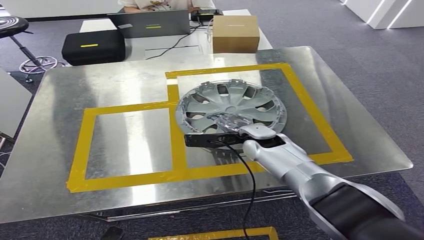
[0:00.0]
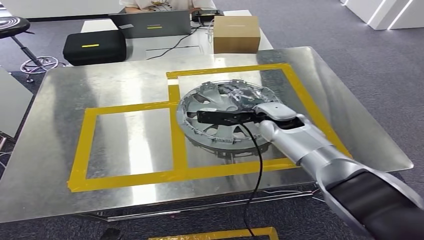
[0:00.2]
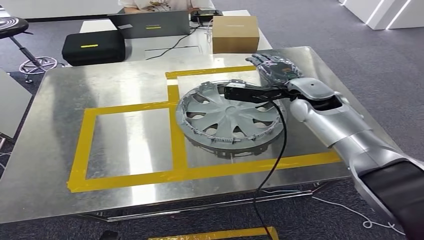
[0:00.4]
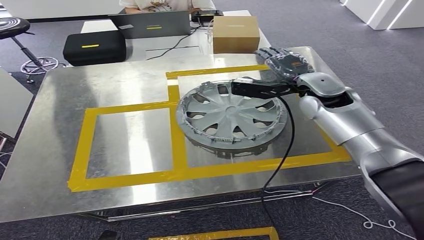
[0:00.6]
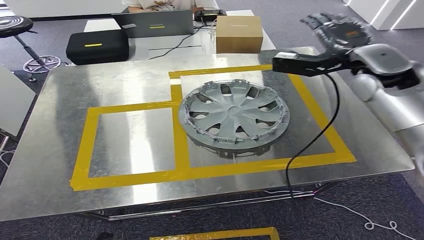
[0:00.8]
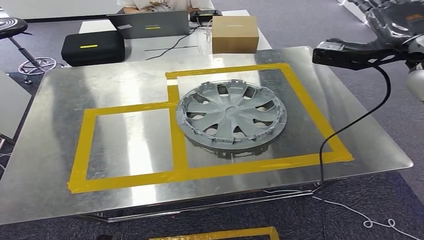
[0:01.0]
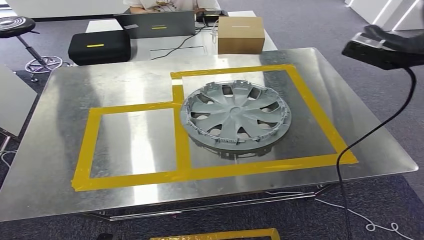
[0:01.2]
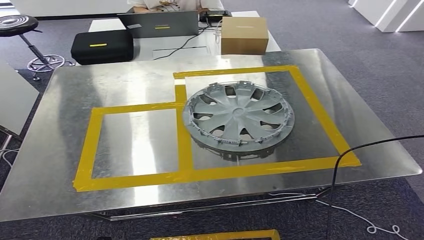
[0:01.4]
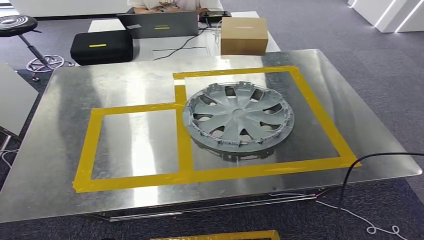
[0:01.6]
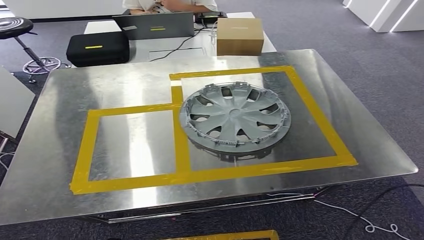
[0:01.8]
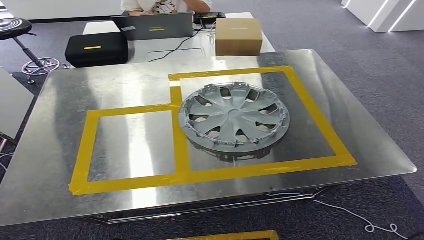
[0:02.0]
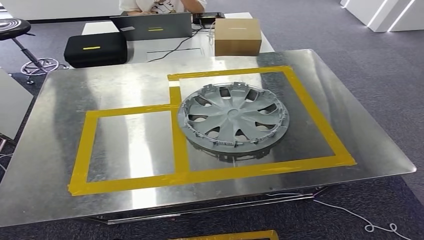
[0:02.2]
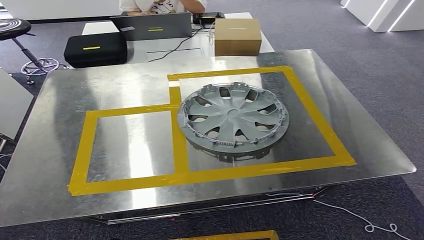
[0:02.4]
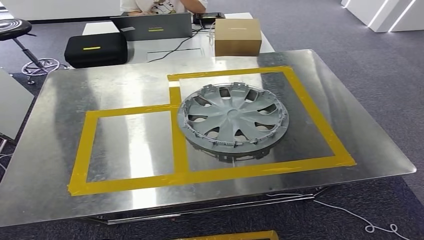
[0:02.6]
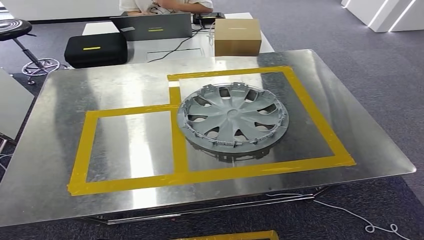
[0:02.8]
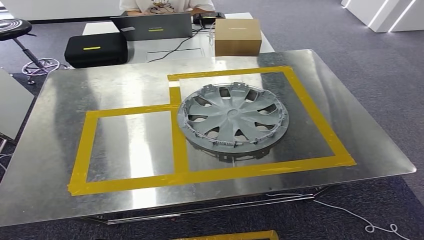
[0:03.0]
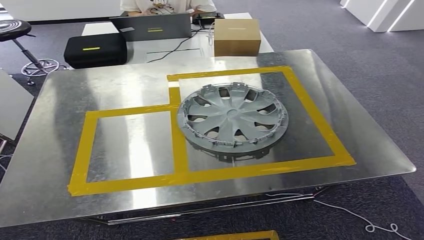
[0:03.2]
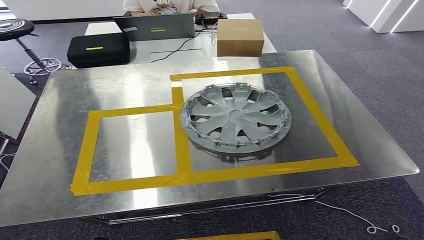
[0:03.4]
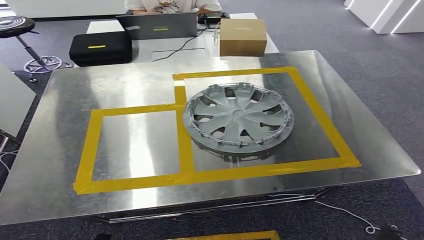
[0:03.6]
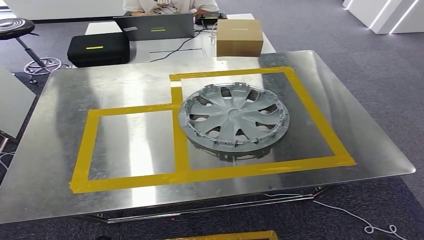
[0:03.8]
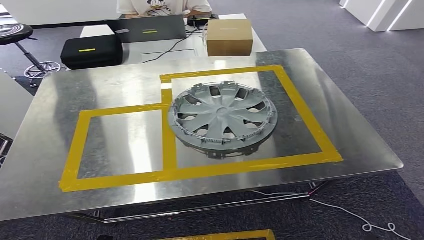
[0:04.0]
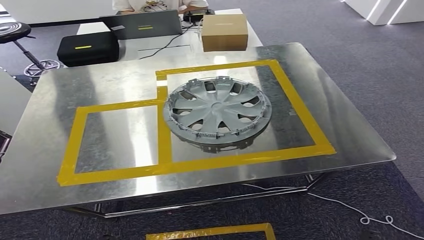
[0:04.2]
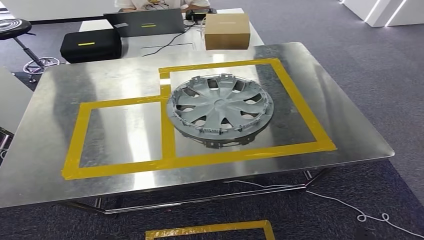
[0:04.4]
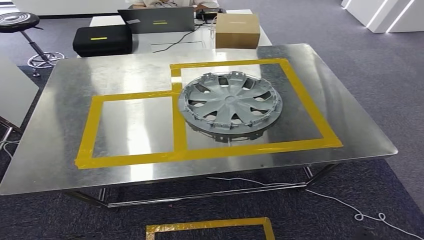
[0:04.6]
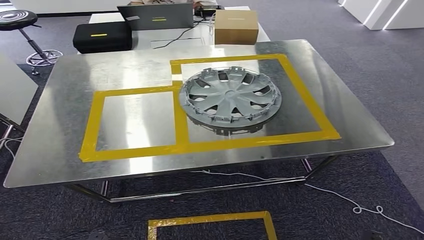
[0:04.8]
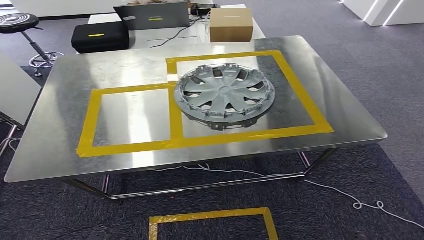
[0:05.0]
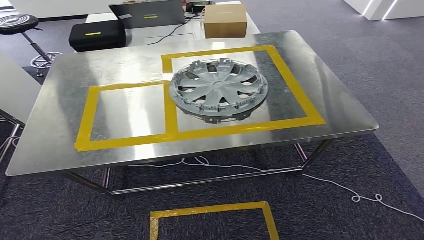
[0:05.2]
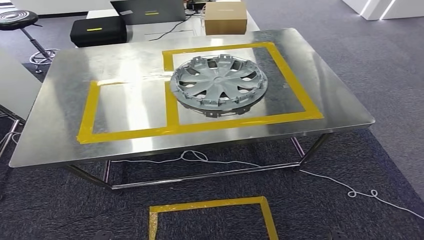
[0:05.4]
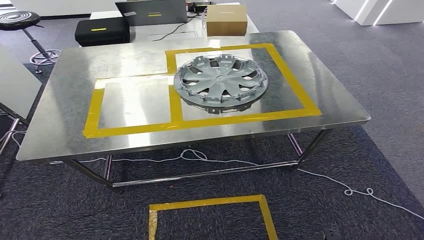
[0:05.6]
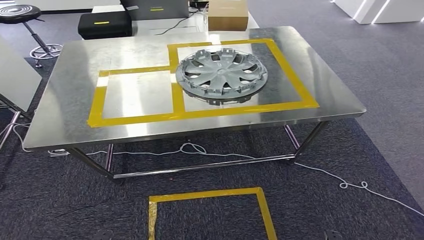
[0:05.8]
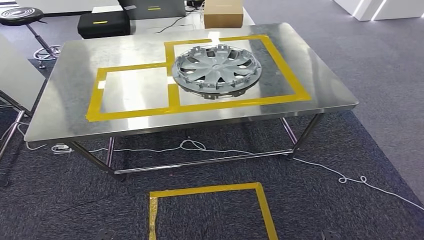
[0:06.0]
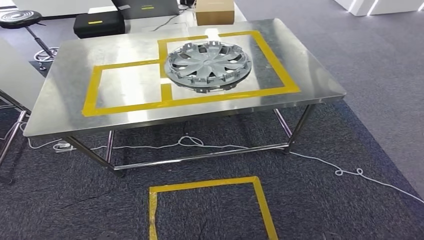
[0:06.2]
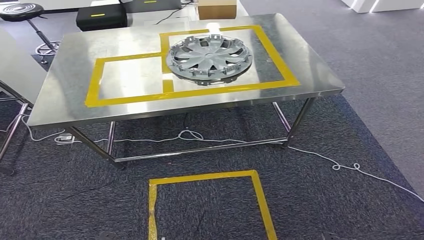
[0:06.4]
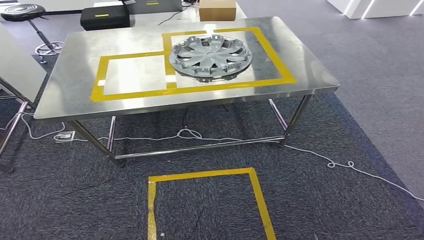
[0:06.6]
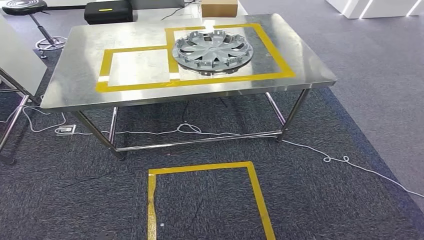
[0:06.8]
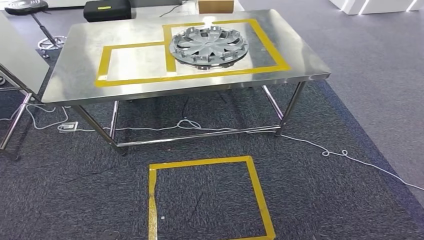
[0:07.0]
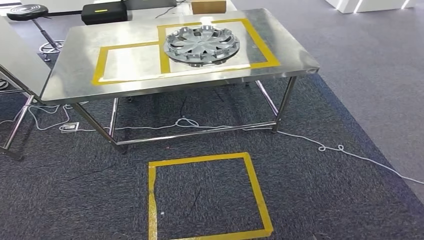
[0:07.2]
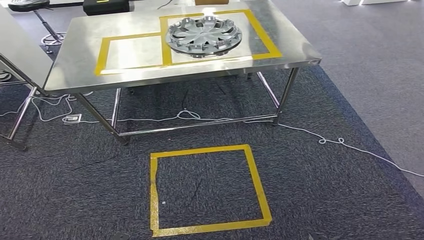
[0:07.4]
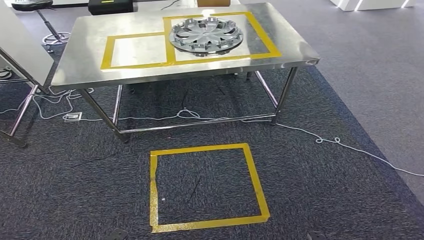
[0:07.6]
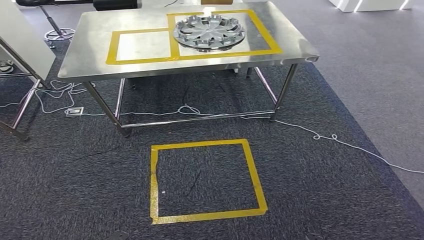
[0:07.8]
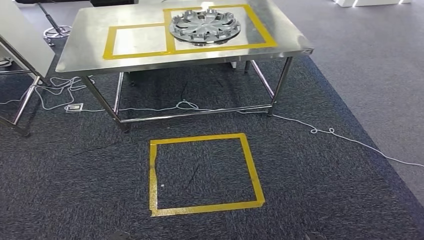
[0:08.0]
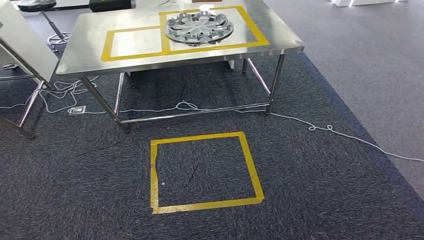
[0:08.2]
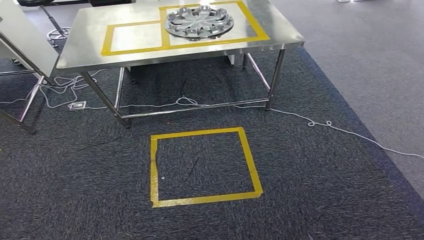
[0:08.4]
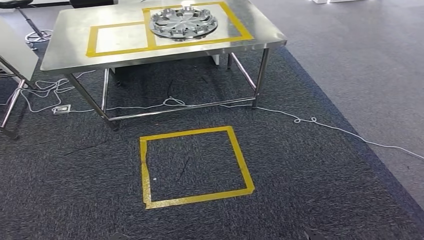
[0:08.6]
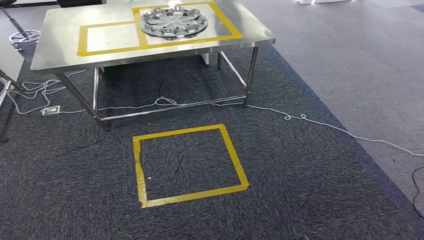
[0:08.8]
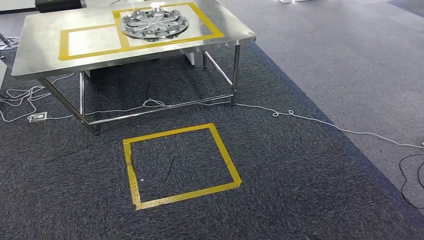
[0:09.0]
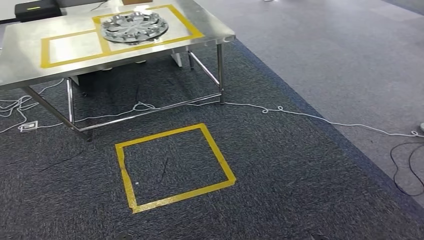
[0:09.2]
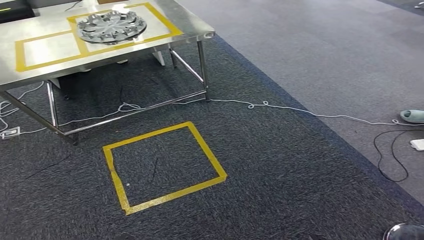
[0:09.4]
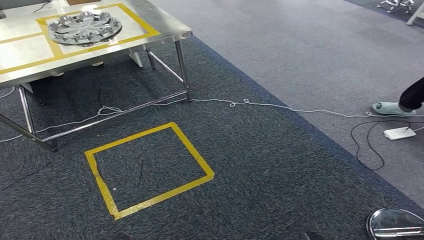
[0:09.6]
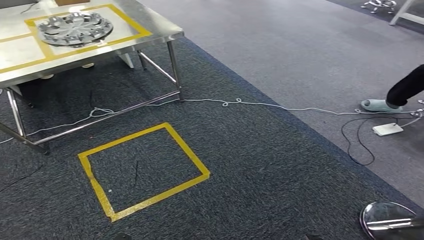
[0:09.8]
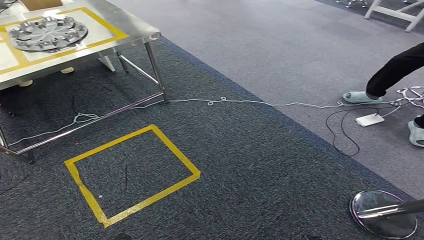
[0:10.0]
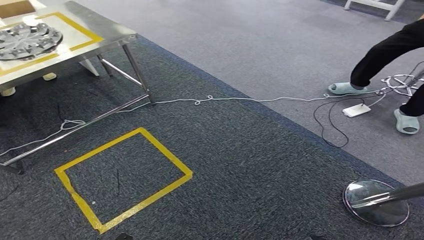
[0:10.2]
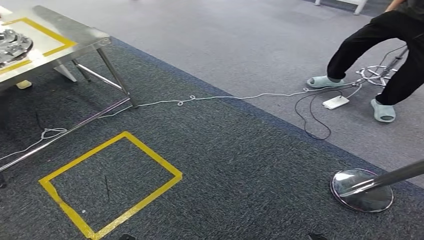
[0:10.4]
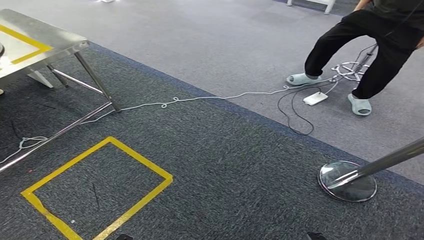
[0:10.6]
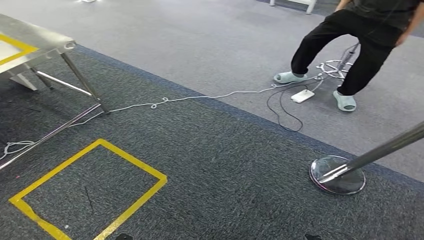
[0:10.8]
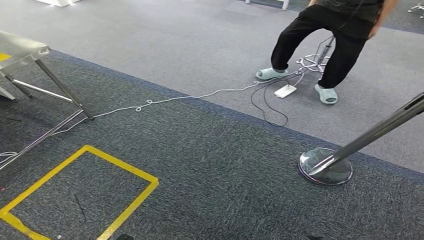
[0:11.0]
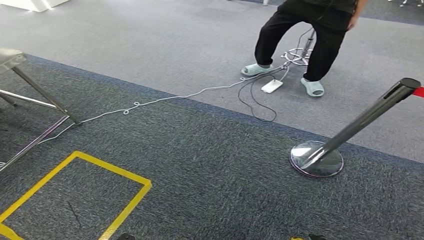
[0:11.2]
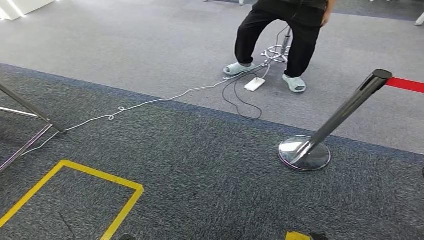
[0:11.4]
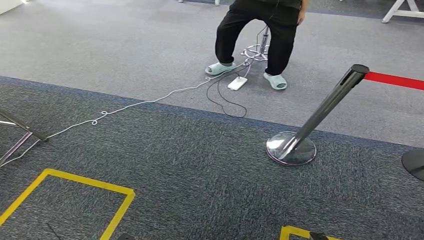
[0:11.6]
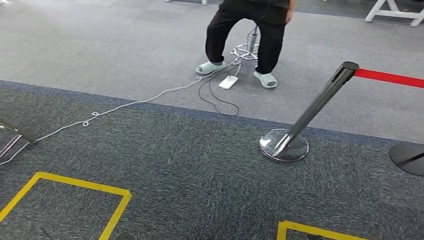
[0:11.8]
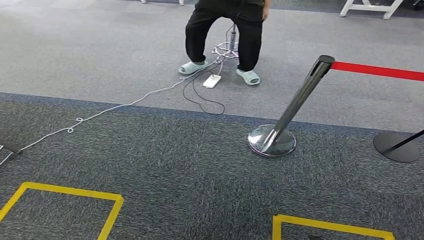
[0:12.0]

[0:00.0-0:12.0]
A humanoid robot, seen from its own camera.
Step, 0:00.0 to 0:02.0: Insert the small parts into the corresponding slots on the workbench.
0:01.6 to 0:03.0: The right hand shifts some 50 cm downward and to the left.

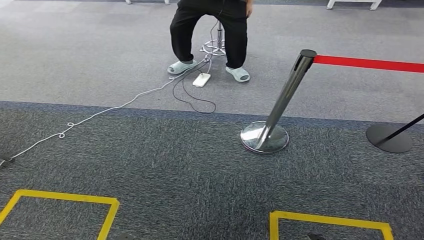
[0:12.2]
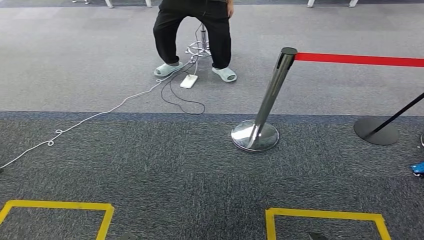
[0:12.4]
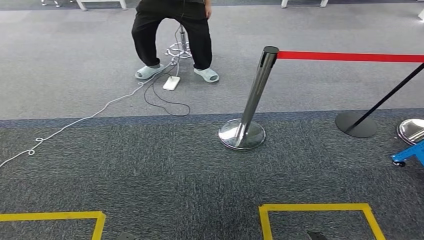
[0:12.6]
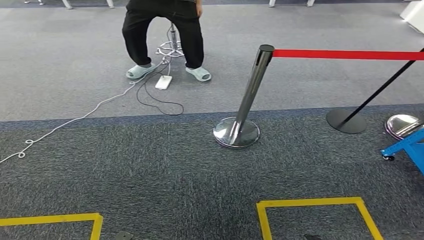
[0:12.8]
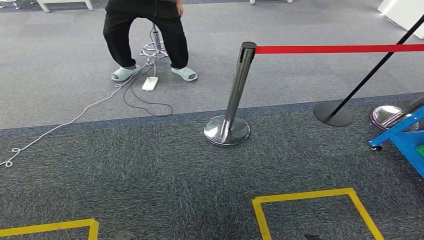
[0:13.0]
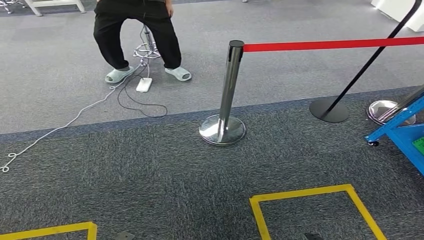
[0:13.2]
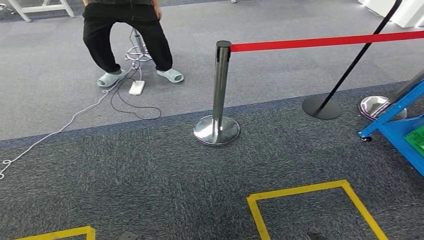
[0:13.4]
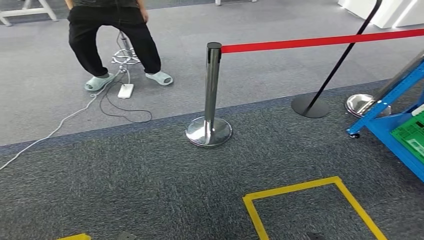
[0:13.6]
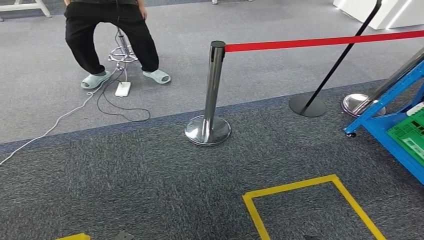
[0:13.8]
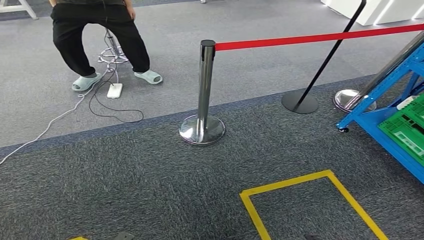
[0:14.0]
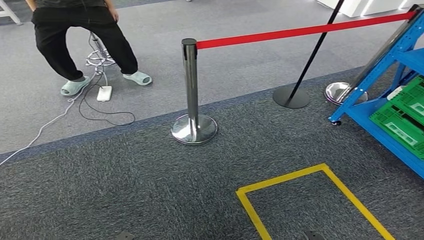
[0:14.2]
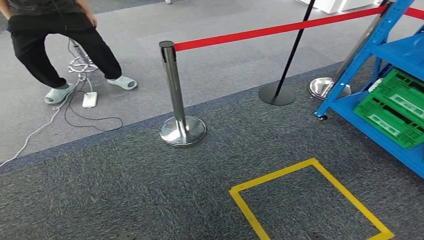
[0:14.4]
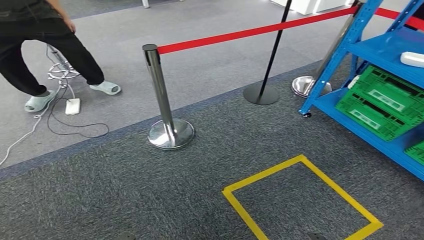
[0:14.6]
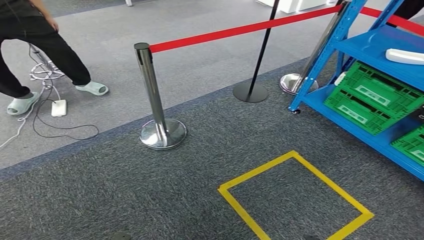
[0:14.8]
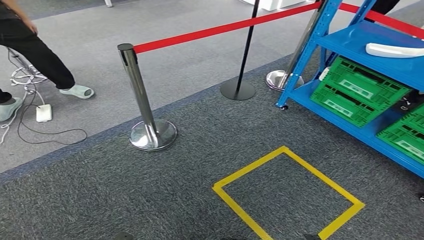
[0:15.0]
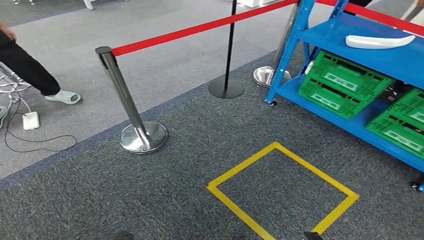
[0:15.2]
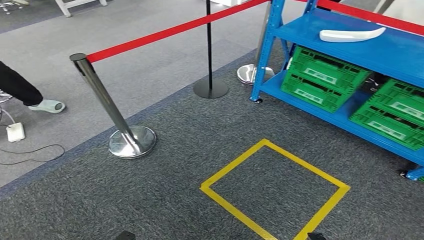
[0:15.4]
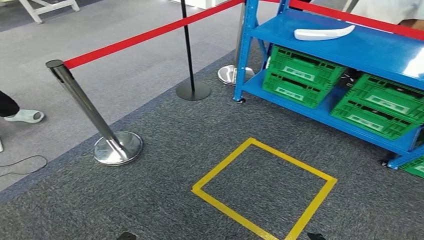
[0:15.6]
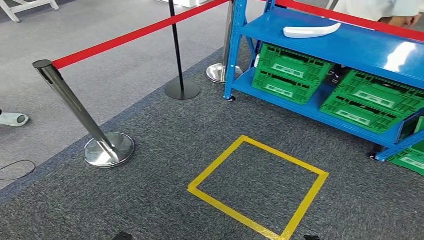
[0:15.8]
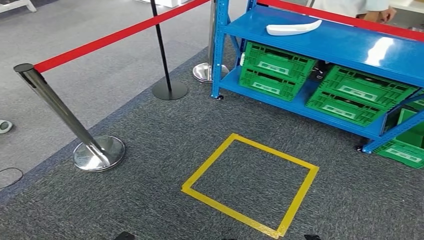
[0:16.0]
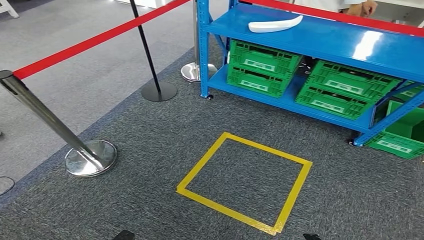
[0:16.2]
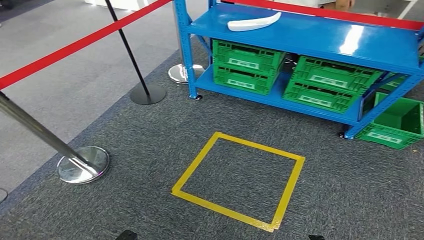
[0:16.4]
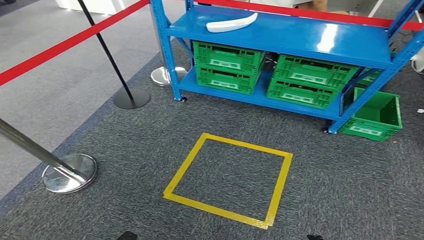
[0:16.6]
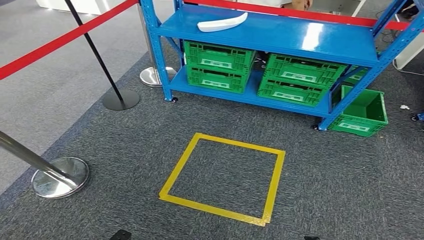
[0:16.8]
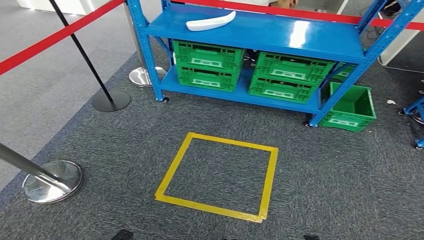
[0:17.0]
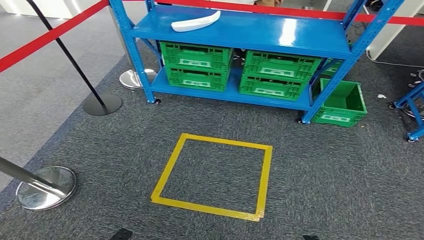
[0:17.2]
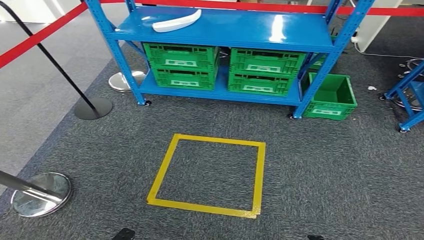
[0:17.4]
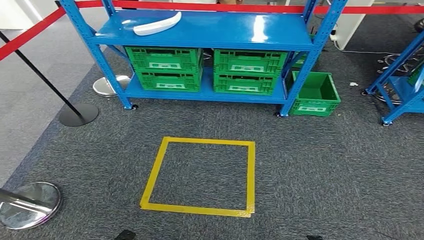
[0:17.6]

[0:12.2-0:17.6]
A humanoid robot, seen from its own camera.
Step, 0:12.2 to 0:17.6: Return to the initial position at the workbench.
